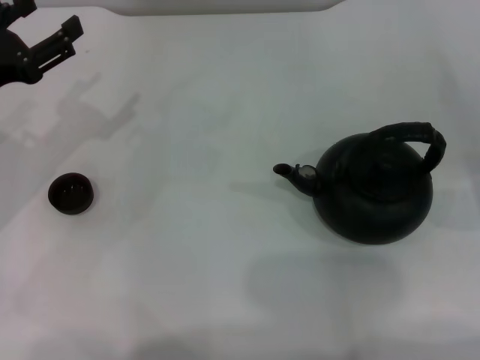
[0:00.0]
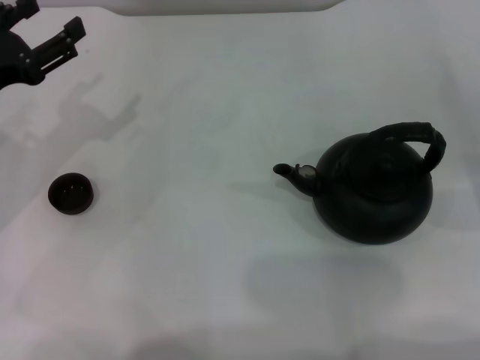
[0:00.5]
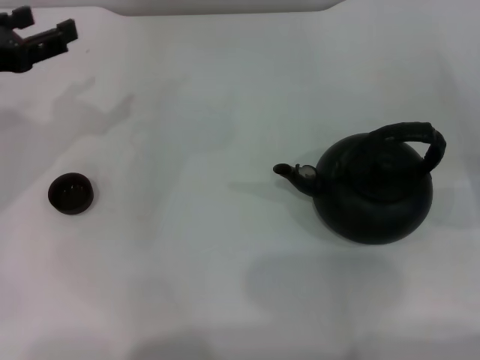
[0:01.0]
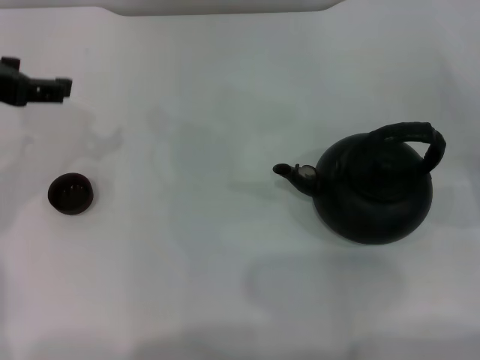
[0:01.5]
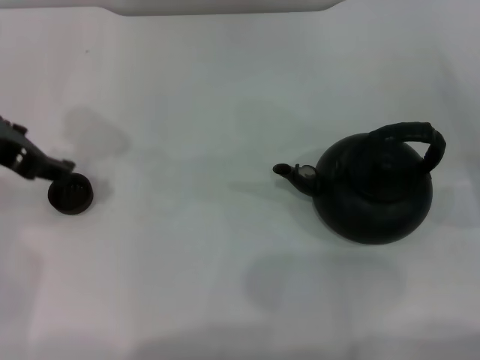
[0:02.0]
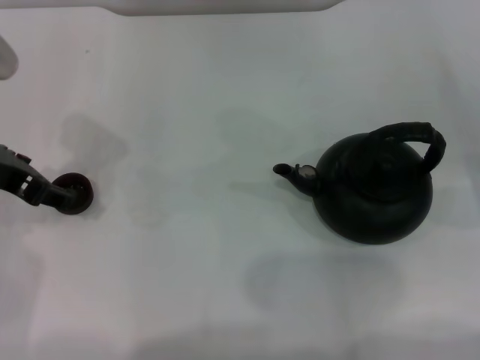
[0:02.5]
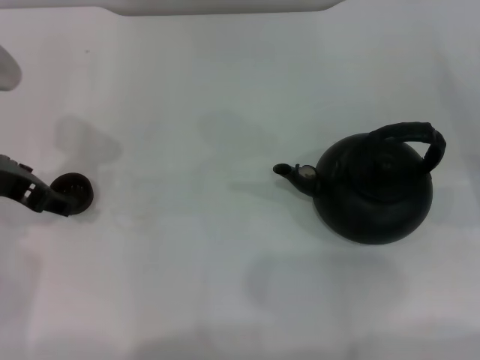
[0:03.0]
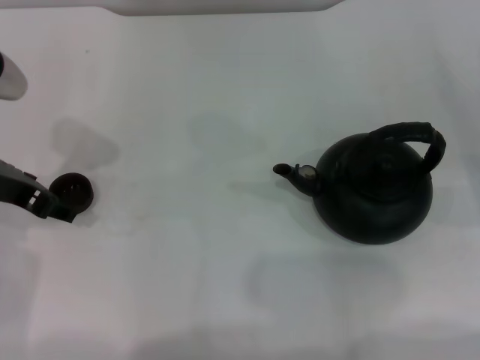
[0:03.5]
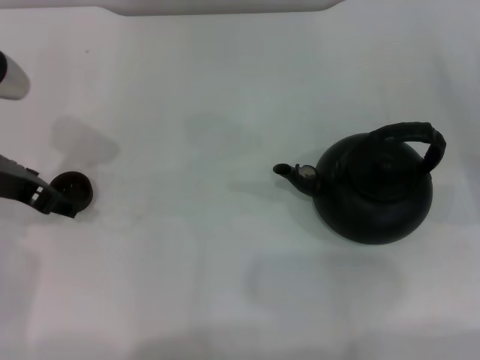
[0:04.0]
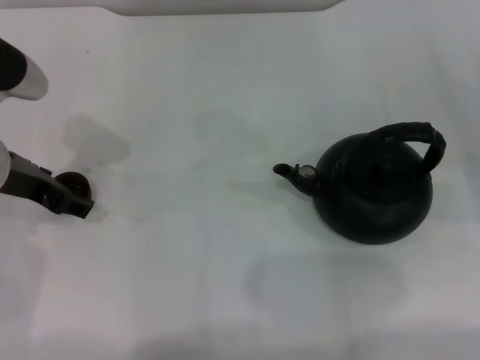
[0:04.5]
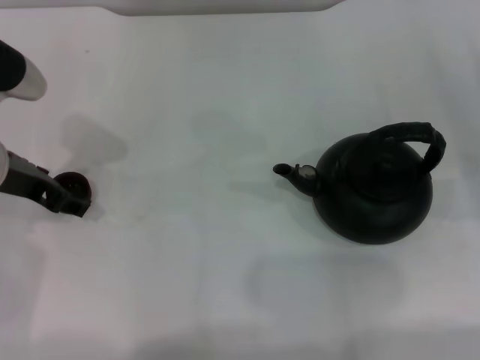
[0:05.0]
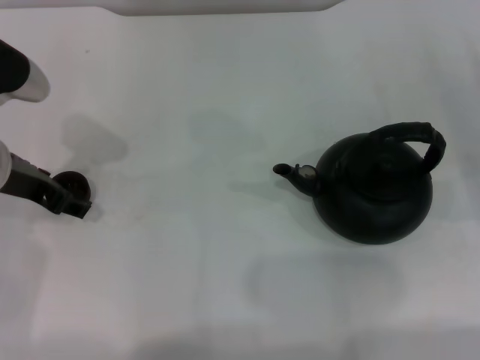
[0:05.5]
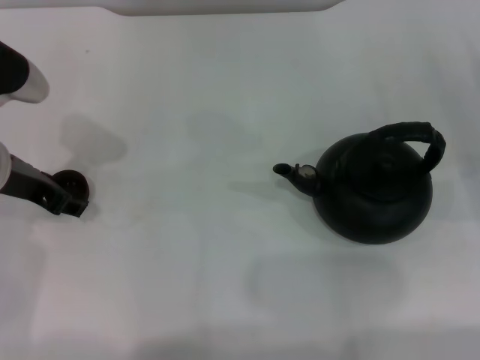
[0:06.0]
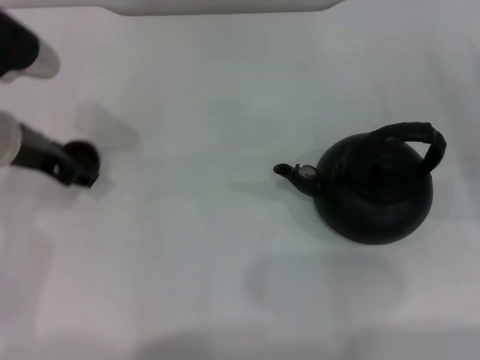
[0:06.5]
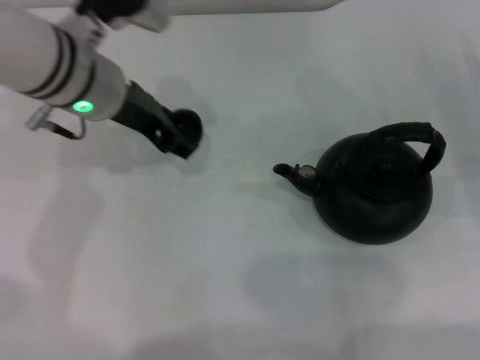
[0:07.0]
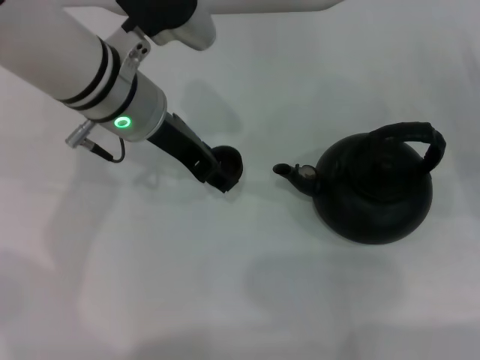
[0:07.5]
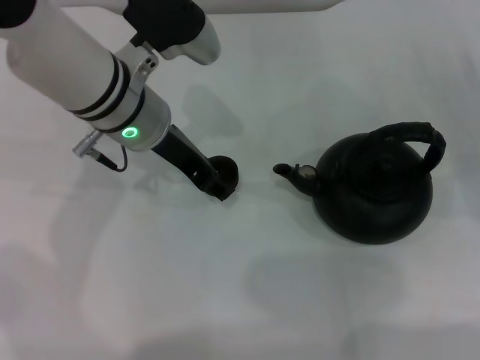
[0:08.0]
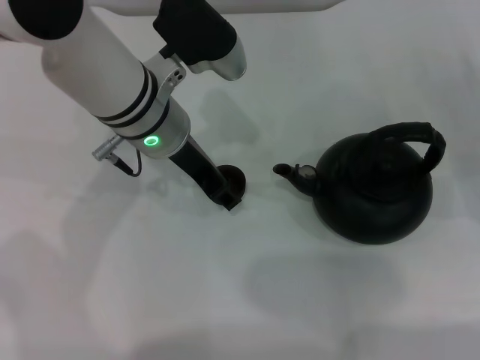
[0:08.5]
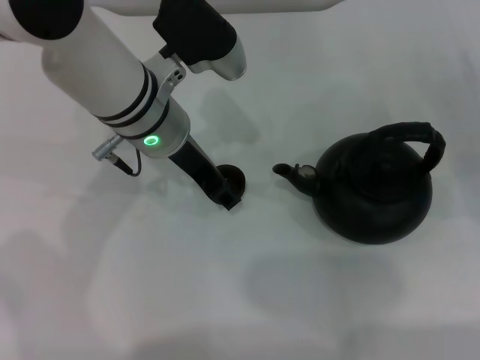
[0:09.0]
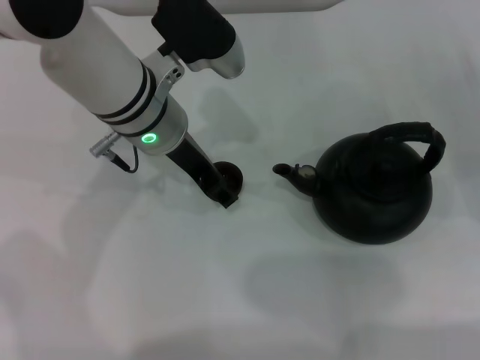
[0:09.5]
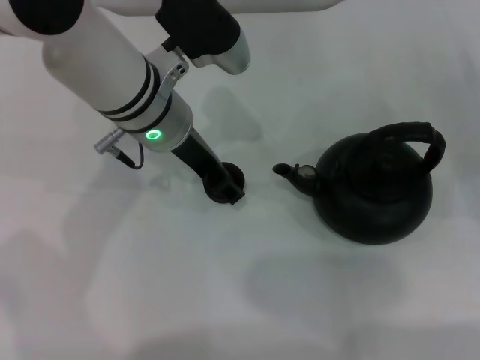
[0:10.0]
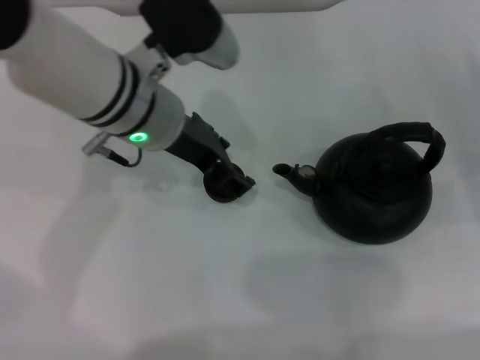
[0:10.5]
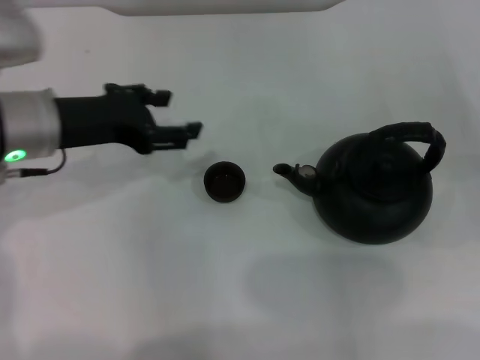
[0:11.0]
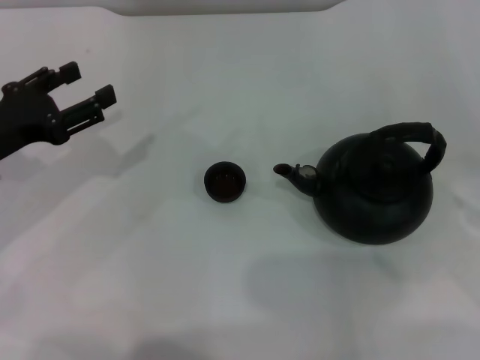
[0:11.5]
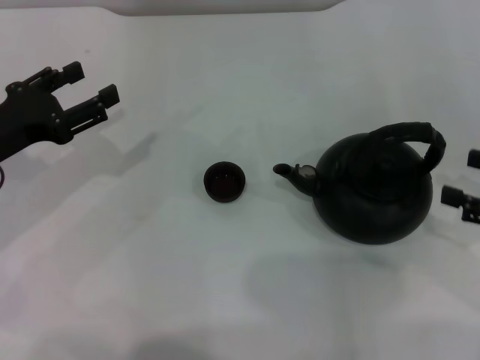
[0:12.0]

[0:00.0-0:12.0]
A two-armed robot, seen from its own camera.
Task of the whole recording: Grasp the handle of the teapot with one hand and pour tea into the teacup.
Step, 0:00.0 to 0:06.5: Pick up the teacup with the left gripper.
Step, 0:07.0 to 0:10.5: Place the teacup in the center of view with the left gripper.
0:00.0 to 0:02.0: The left gripper heads upward and to the right, covering roughly 10 cm.
0:02.0 to 0:04.0: The left gripper is displaced downward by about 5 cm.
0:04.0 to 0:06.0: The left gripper closes up.
0:06.0 to 0:08.0: The left gripper moves to the right, approximately 15 cm, and closes up.
0:08.0 to 0:10.0: The left gripper opens its fingers.
0:10.0 to 0:12.0: The left gripper shifts some 20 cm to the left. The right gripper goes approximately 10 cm upward and backward.

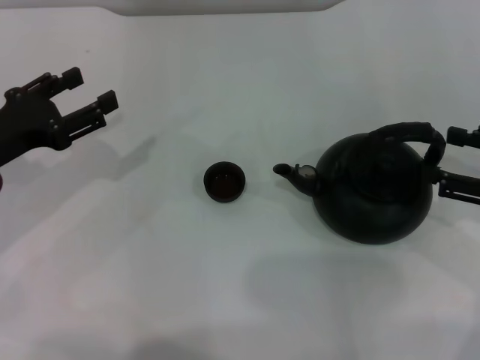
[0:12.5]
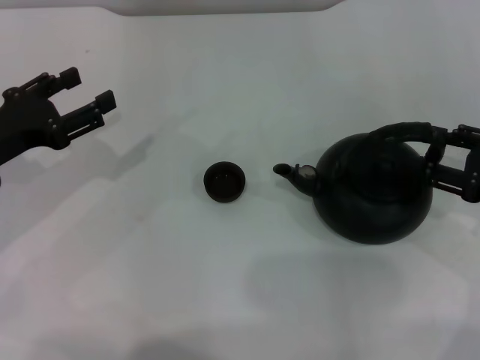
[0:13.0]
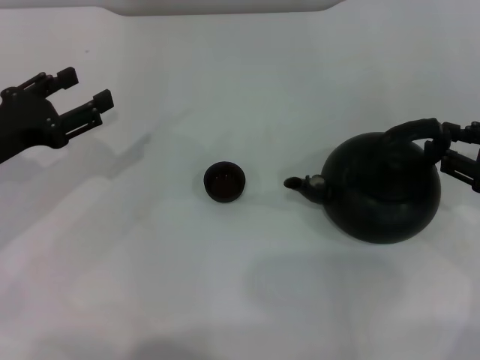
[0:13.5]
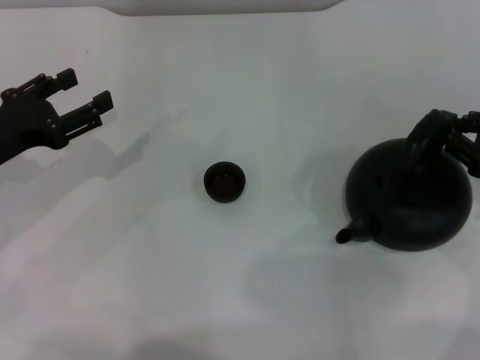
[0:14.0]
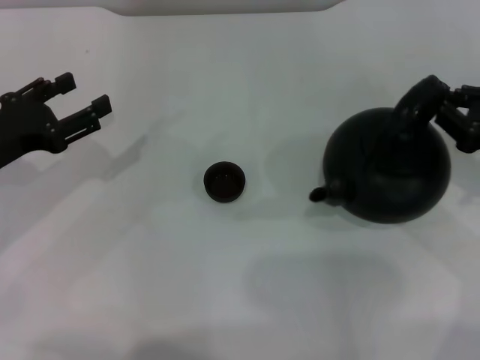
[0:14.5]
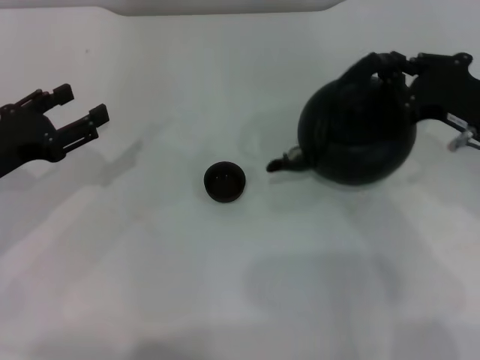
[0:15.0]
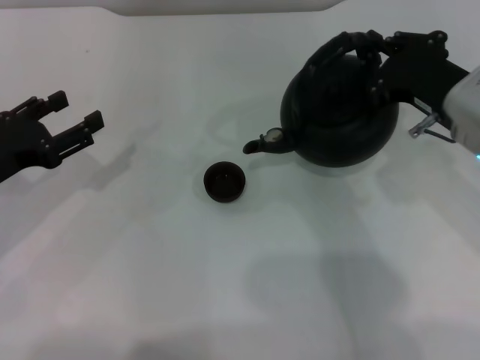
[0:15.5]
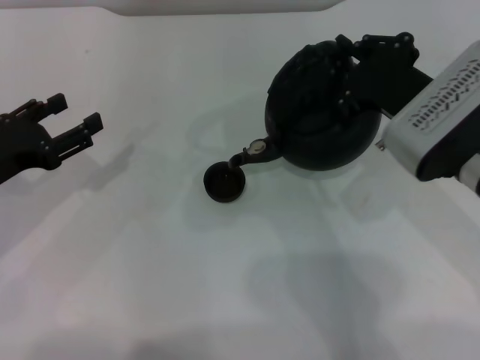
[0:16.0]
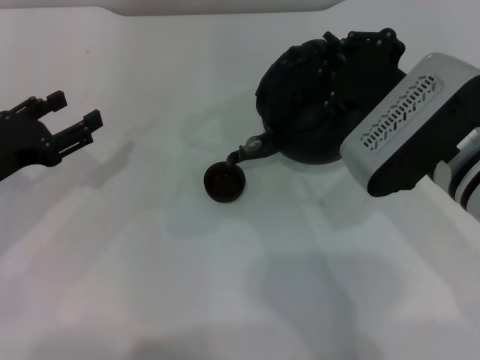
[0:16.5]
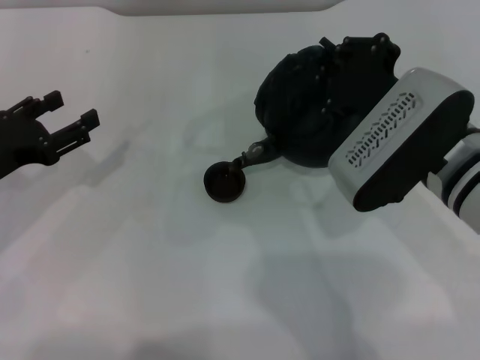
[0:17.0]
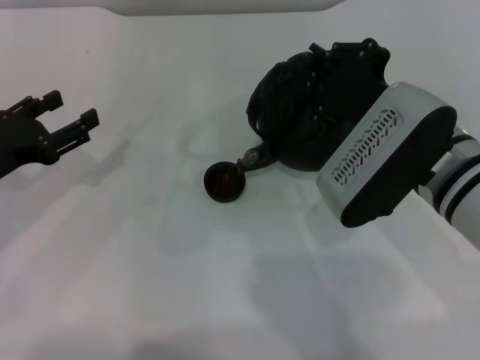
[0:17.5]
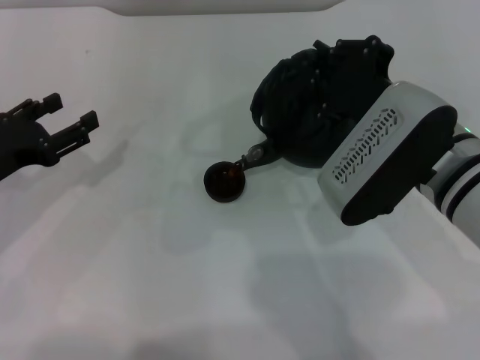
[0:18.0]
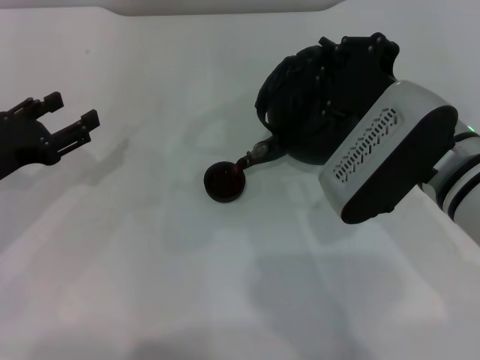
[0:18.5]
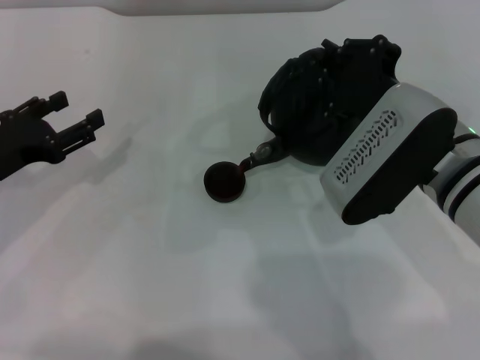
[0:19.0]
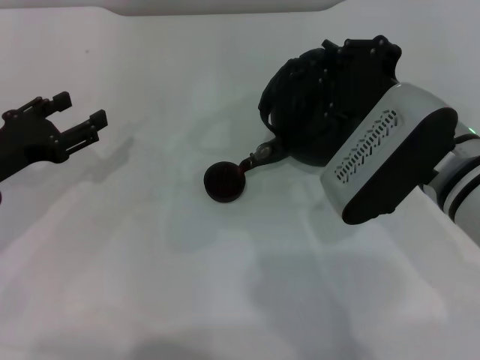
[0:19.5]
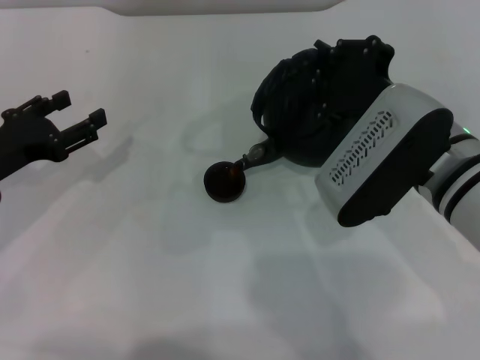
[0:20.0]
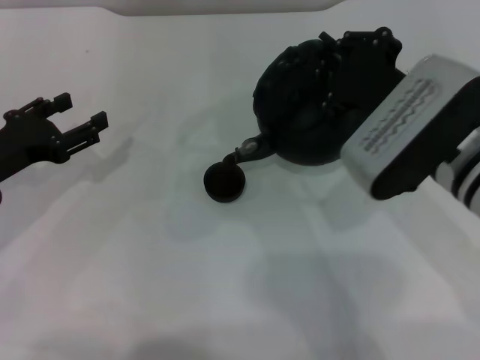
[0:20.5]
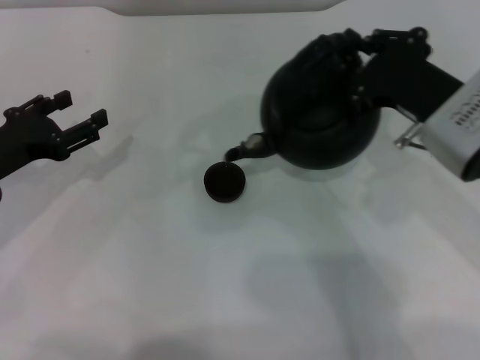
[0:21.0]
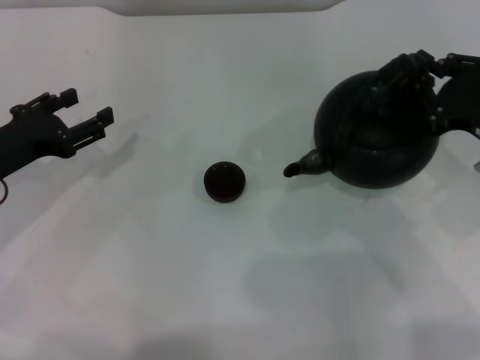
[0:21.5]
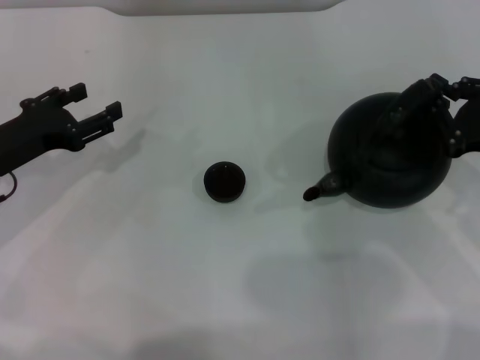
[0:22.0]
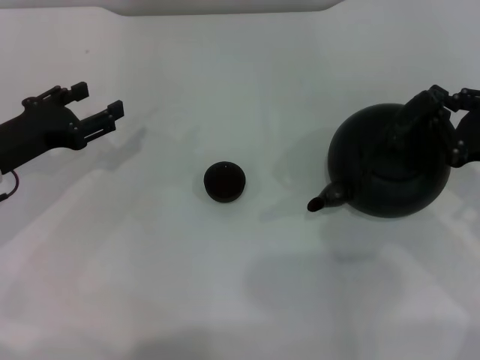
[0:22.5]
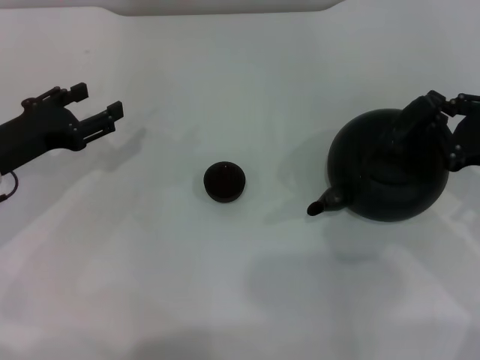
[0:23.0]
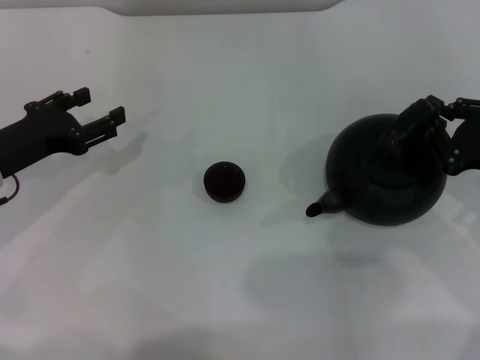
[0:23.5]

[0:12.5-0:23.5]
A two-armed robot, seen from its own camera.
Task of the whole recording: Grasp the handle of the teapot with one hand and pour tea into the teacup.
Step, 0:12.5 to 0:14.5: Pick up the teapot with the right gripper.
Step, 0:15.0 to 0:20.5: Pour tea into the teacup with the right gripper.
0:12.5 to 0:14.5: The right gripper closes its fingers.
0:14.5 to 0:16.0: The right gripper travels to the left by approximately 15 cm.
0:16.0 to 0:18.0: The grippers stay close to where they were, moving slightly.
0:18.0 to 0:20.0: Both grippers stay about where they are.
0:20.0 to 0:21.5: The right gripper goes roughly 10 cm to the right.
0:21.5 to 0:23.5: The right gripper ends up about 5 cm from where it was.

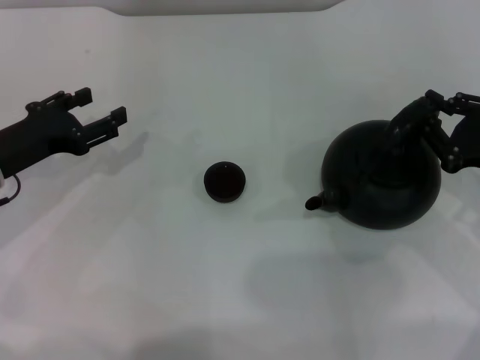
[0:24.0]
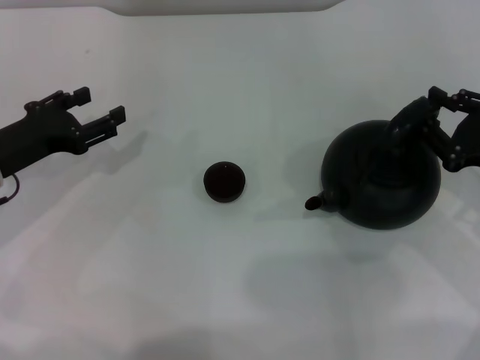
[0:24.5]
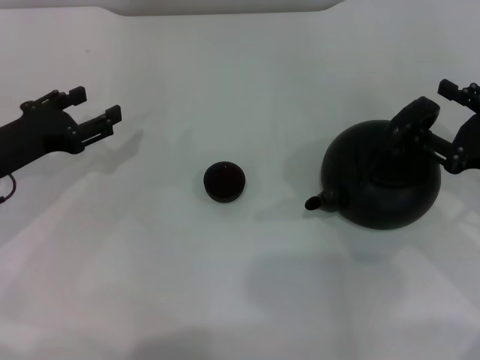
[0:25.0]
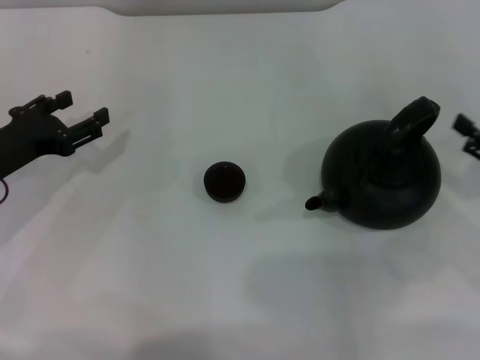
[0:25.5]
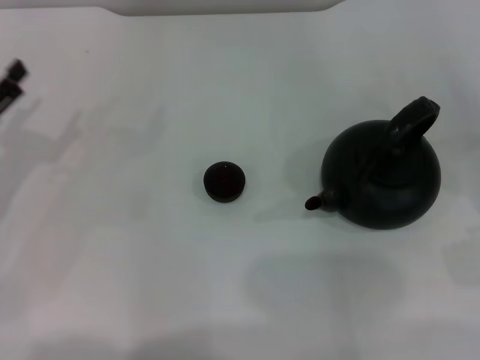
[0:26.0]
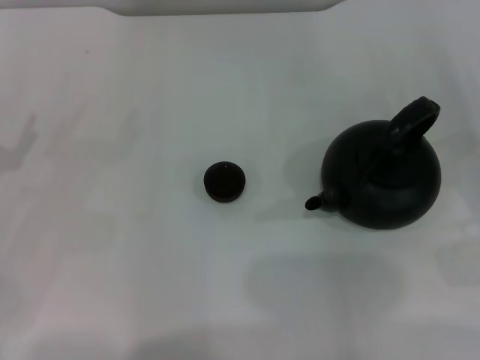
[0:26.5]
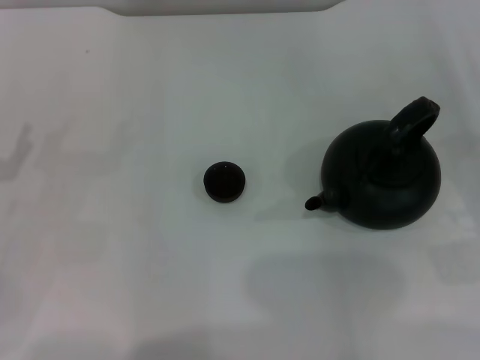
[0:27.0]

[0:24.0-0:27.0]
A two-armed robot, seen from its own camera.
Task of the whole recording: Grasp the handle of the teapot with one hand and pour tea into the teacup.
0:24.0 to 0:25.5: The right gripper ends up roughly 5 cm from where it was, and opens.
0:25.5 to 0:27.0: The left gripper is displaced backward and to the left by about 10 cm.
